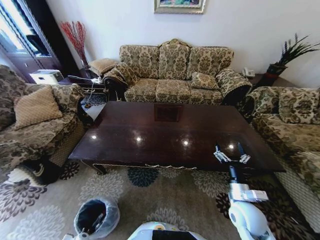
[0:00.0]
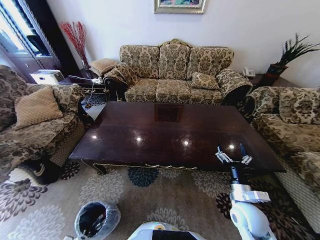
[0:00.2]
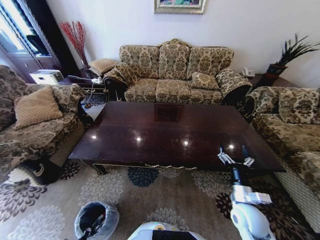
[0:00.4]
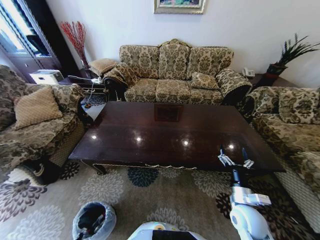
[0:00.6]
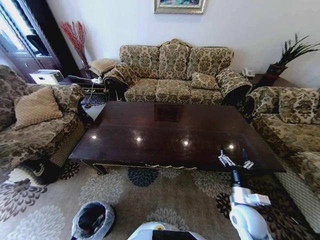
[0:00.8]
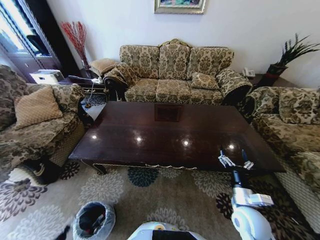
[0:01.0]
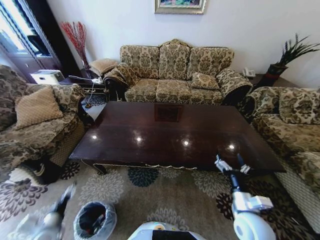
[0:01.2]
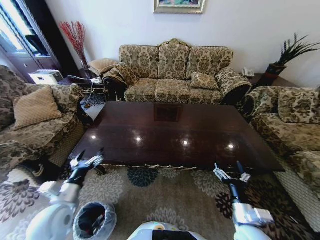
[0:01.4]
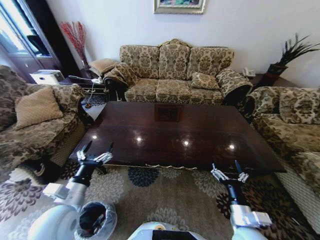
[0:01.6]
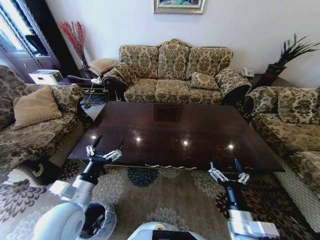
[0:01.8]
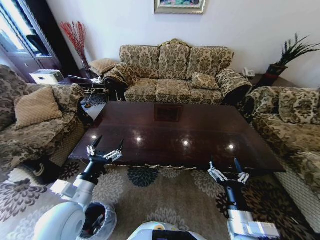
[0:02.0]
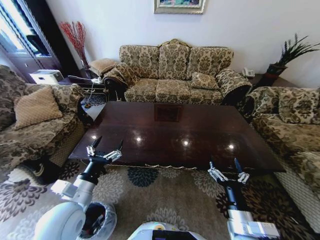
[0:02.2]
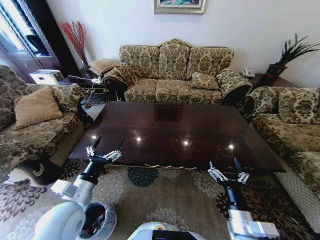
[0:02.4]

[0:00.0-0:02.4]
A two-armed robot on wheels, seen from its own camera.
Task of the whole recording: Move to the front of the table and place the trash on the table into the trash bin.
0:00.0 to 0:01.2: The left gripper shifts some 25 cm upward, and opens its fingers.
0:01.2 to 0:02.4: The left gripper shifts about 20 cm upward and to the right. Meanwhile the right gripper heads backward and to the left, covering some 10 cm.
